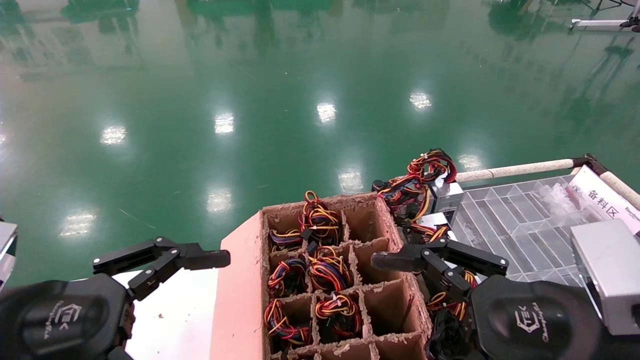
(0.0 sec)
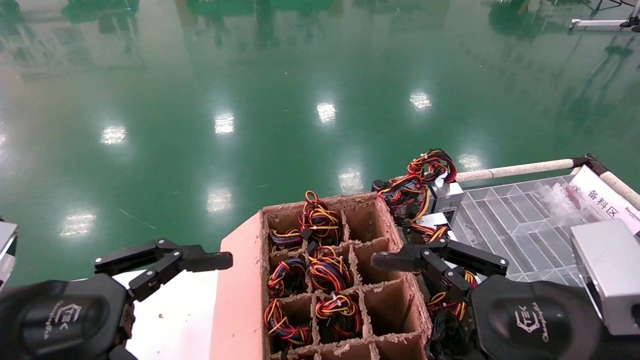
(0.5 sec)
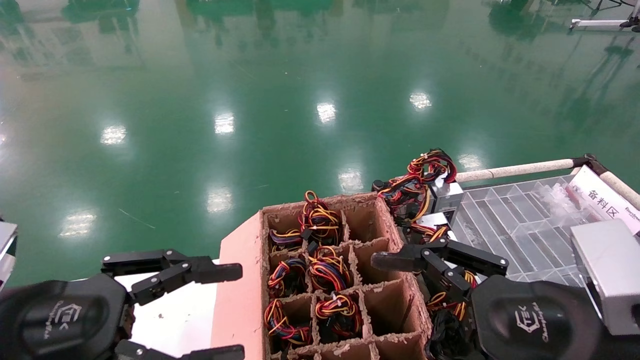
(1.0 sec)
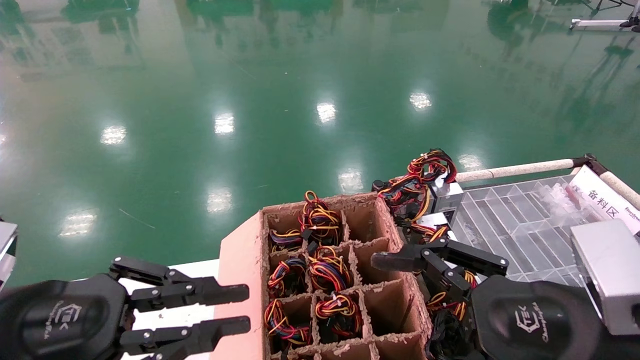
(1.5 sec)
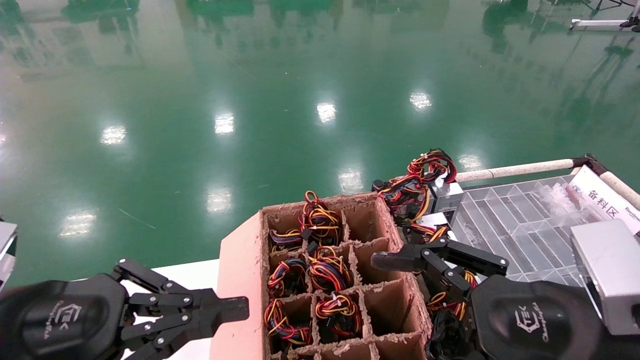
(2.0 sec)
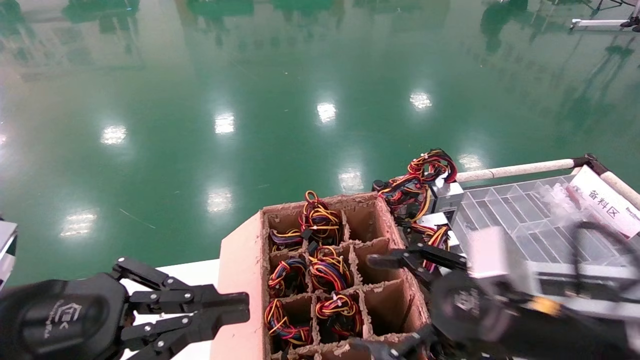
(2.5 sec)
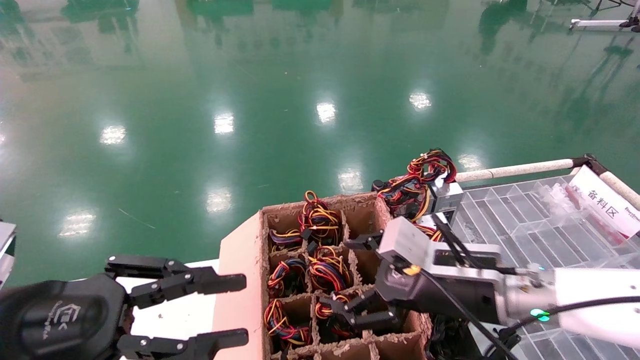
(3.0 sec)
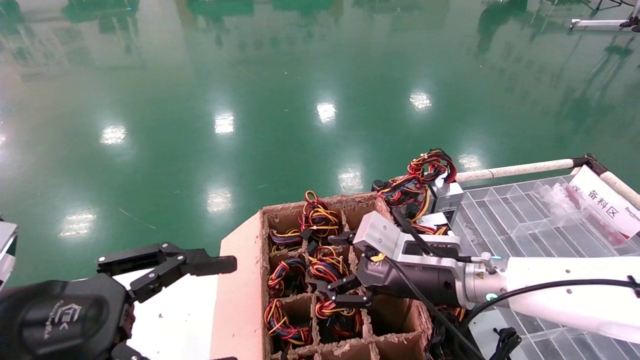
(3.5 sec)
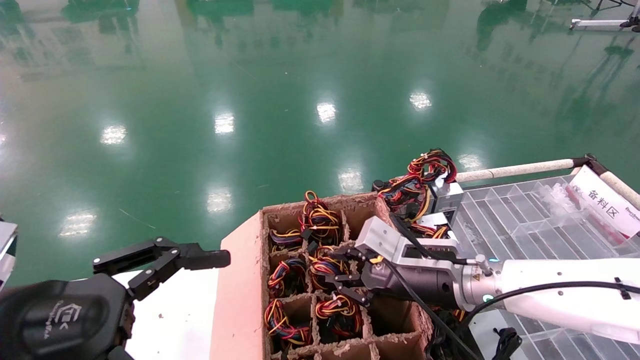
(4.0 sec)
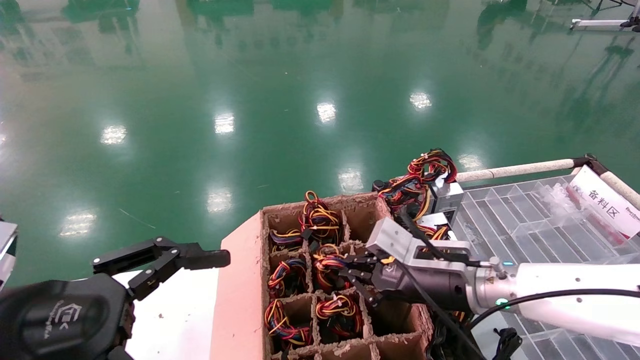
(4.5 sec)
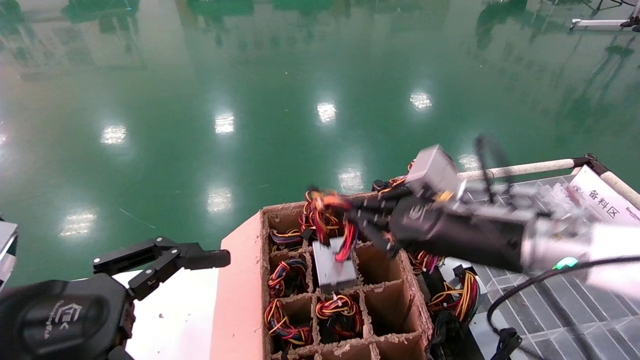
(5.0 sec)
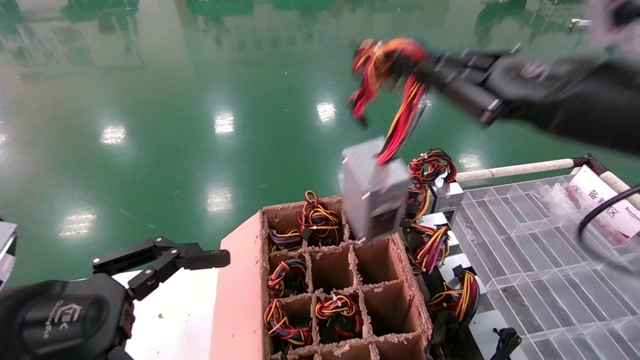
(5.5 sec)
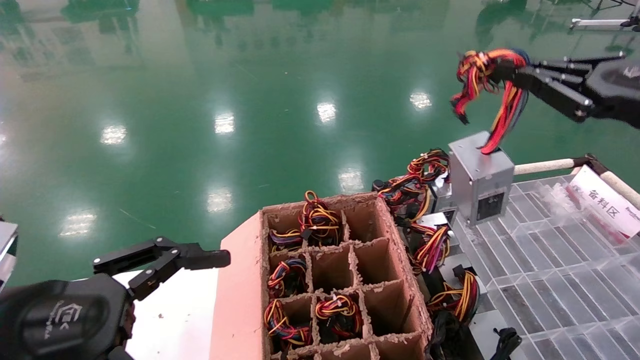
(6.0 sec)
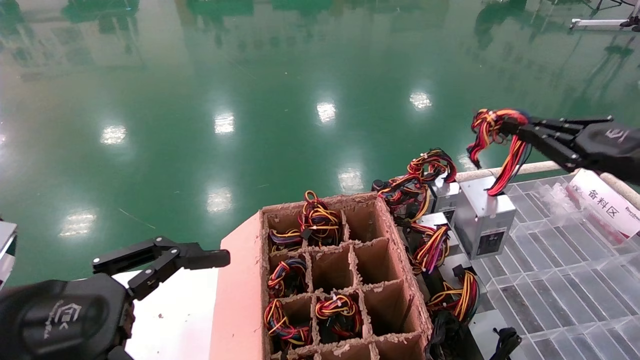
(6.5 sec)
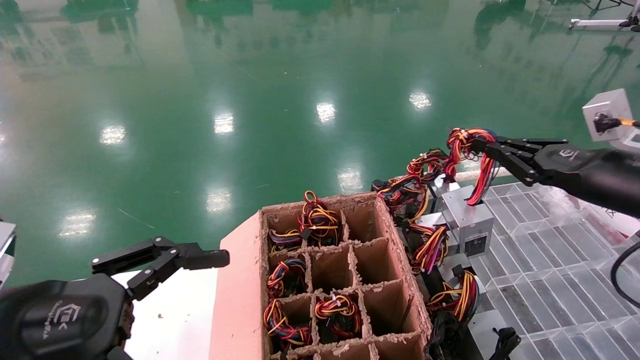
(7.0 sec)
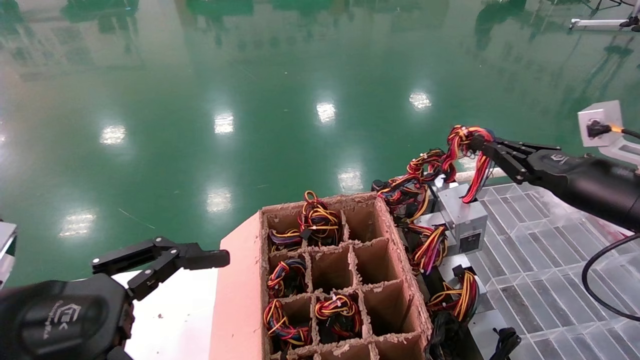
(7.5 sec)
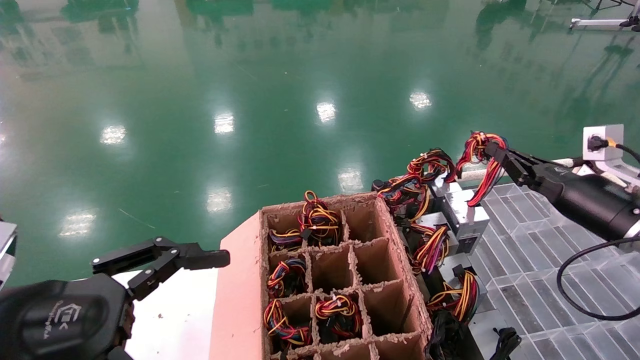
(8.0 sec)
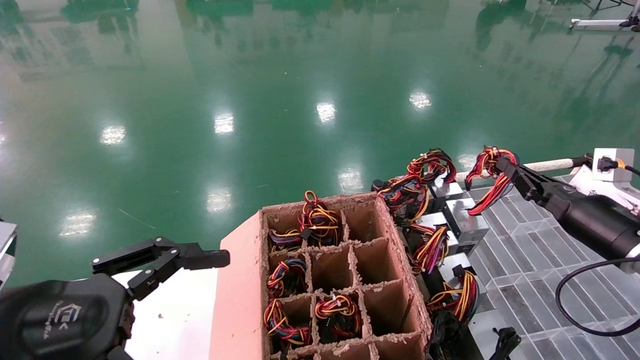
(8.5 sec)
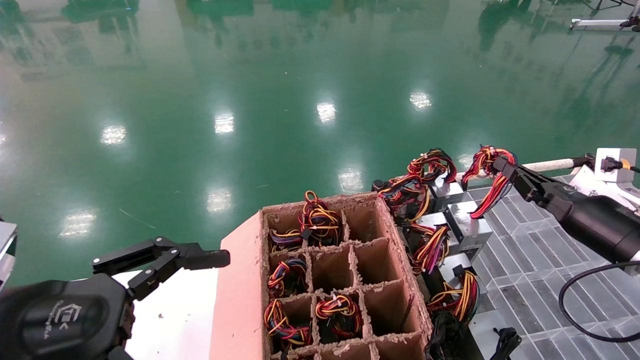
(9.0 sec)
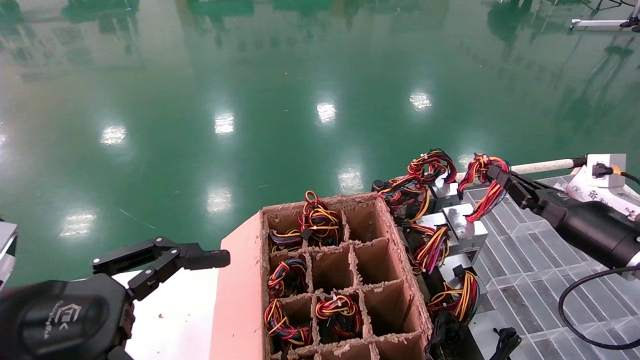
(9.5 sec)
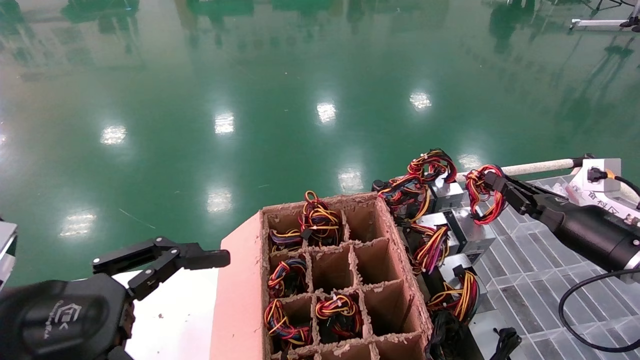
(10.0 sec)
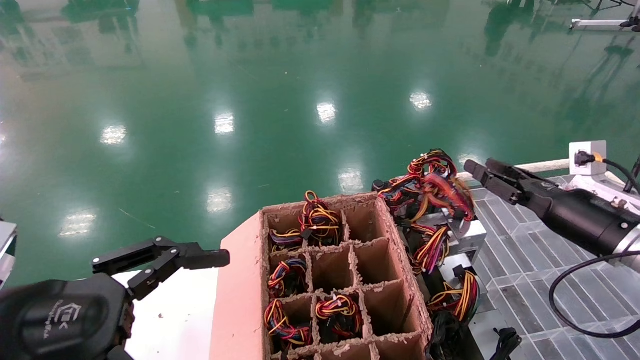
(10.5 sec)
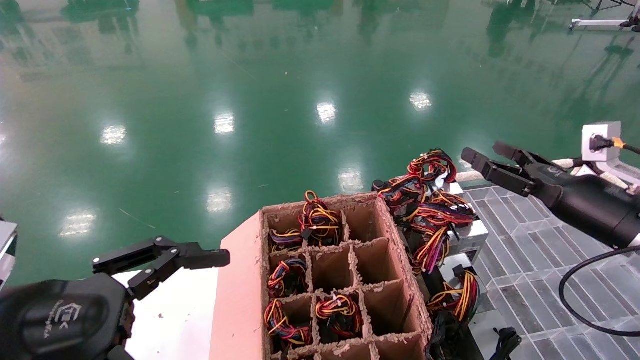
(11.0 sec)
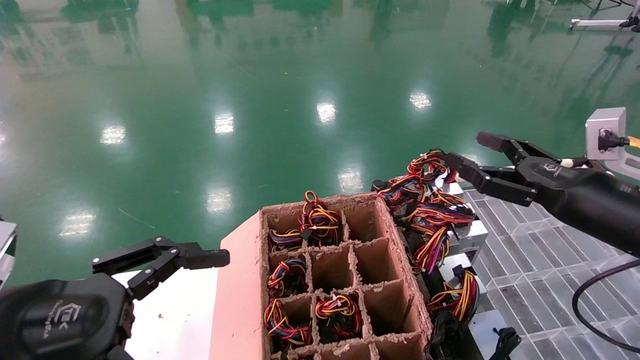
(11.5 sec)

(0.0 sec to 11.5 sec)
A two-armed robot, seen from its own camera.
Step, 2.0 sec - 4.5 sec: Grab and lift the power supply from the large box.
Step, 5.0 sec - 10.0 sec: Place the power supply on the operating table.
0.0 sec - 2.0 sec: The left gripper closes its fingers.
2.0 sec - 4.0 sec: The right gripper shifts some 20 cm forward and to the left, and closes up; the left gripper opens.
4.0 sec - 6.0 sec: The right gripper shifts some 30 cm to the right, upward and backward, and closes its fingers.
6.0 sec - 7.5 sec: The right gripper shifts roughly 15 cm downward and forward.
7.5 sec - 9.5 sec: The right gripper travels downward by some 10 cm.
9.5 sec - 11.5 sec: The right gripper shifts about 10 cm upward, backward and to the left, and opens its fingers.
